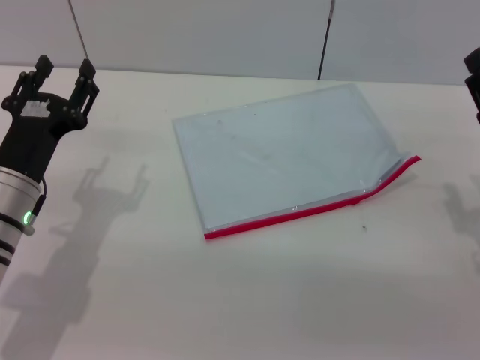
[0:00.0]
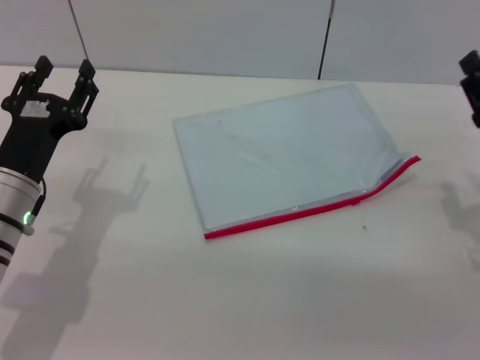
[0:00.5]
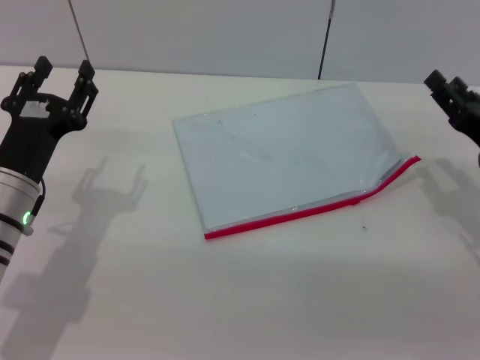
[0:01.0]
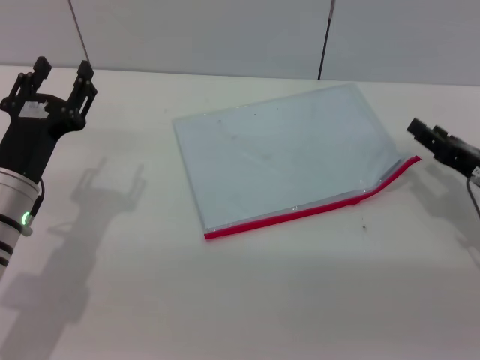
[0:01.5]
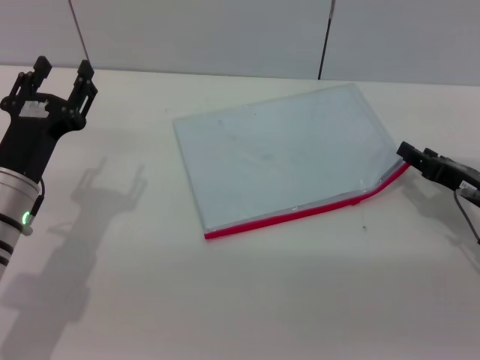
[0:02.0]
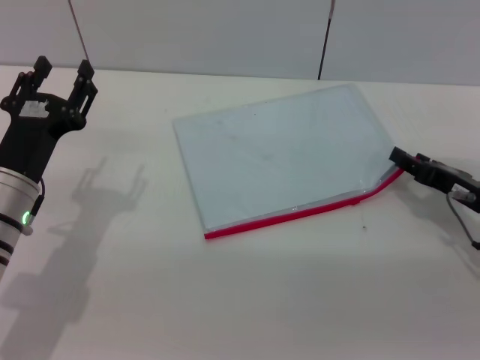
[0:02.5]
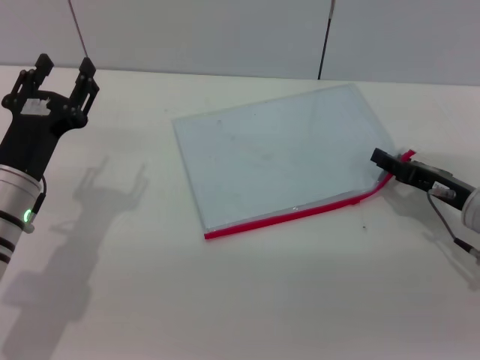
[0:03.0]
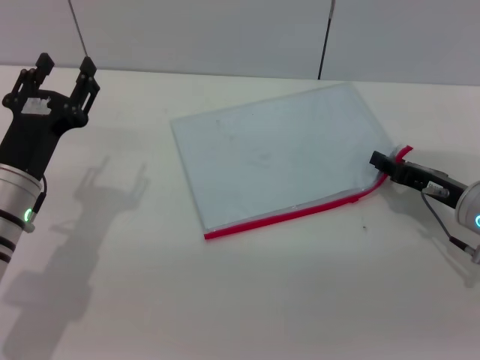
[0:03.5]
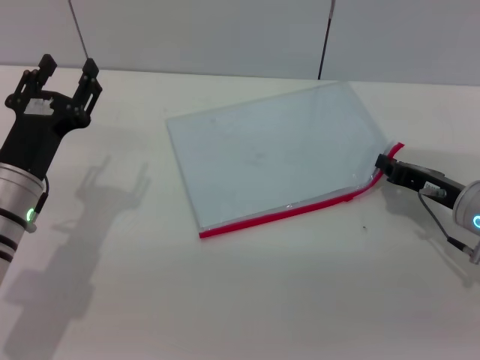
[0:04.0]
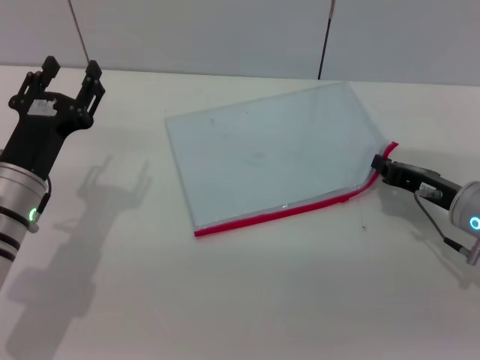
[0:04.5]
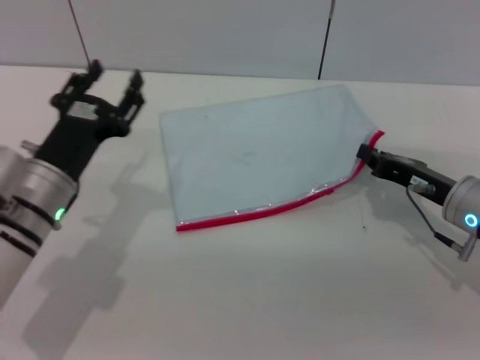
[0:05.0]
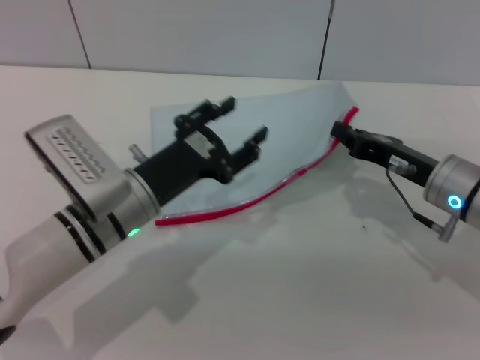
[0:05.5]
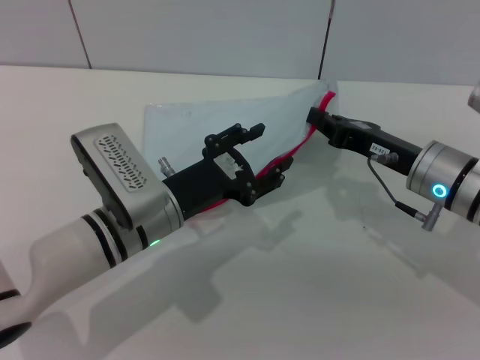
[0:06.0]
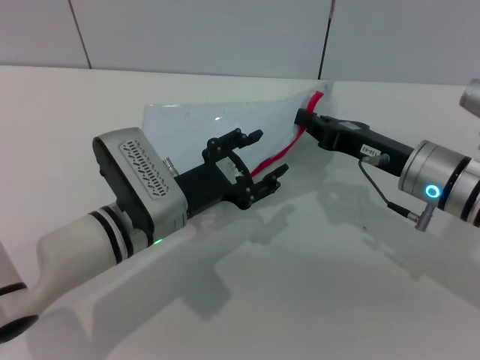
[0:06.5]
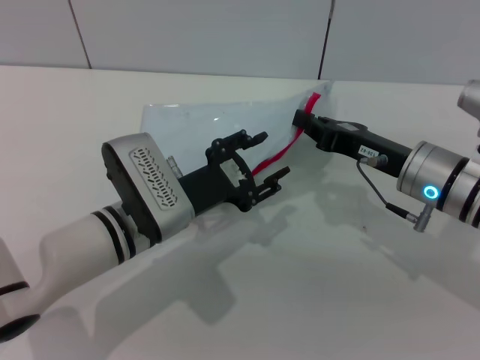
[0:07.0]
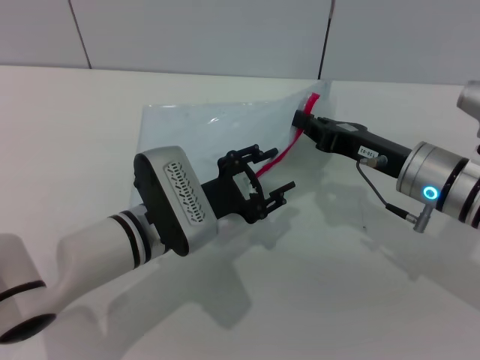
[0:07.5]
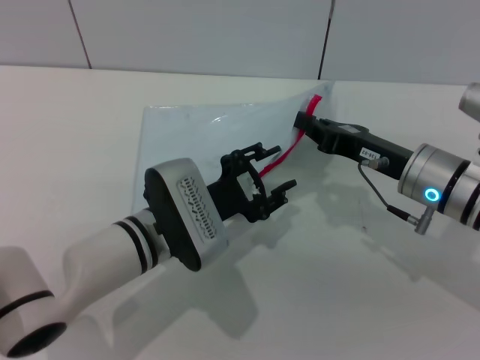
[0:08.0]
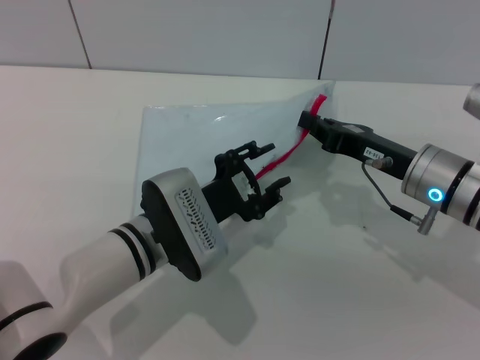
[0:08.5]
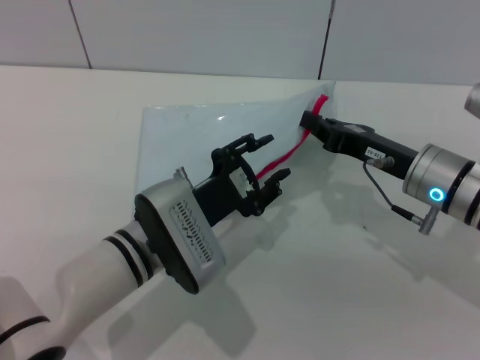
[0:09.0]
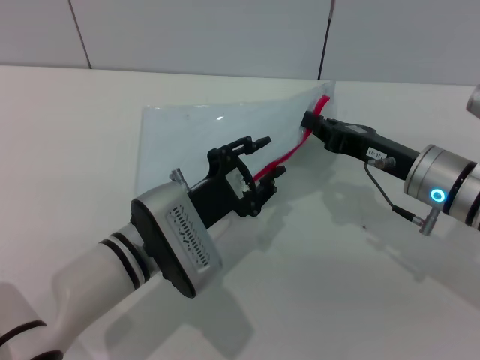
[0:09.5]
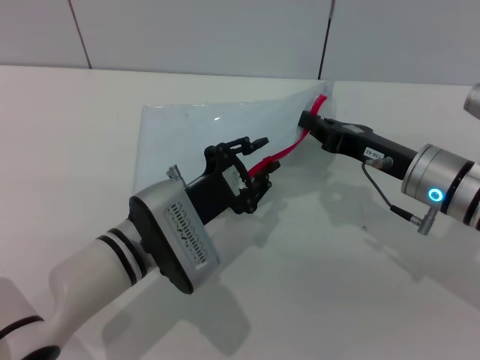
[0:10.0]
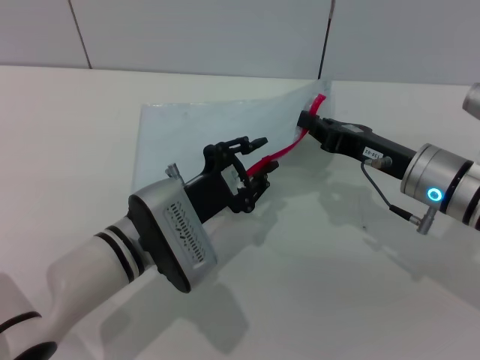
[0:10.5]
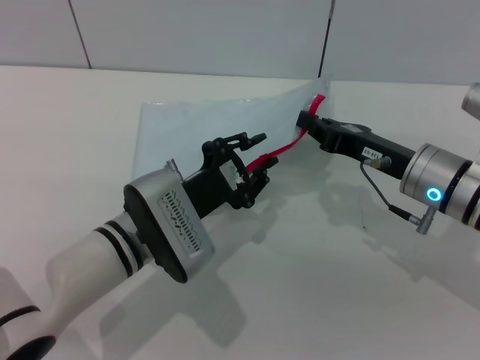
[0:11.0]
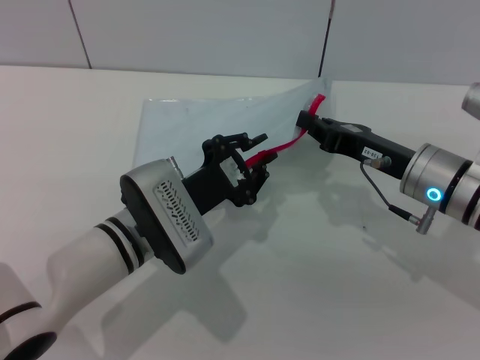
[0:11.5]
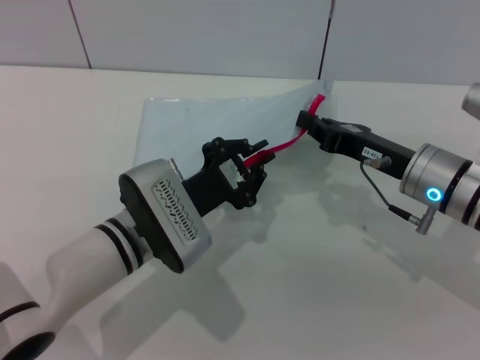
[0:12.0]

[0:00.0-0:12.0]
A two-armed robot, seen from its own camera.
Step, 0:00.0 to 0:06.0: Pick up the transparent plastic bag with the right gripper.
0:00.0 to 0:02.0: The right gripper ends up some 5 cm from where it was.
0:02.0 to 0:04.0: The right gripper closes its fingers.
0:04.0 to 0:06.0: The right gripper moves to the left, about 5 cm; the left gripper is displaced to the right by about 10 cm.
0:08.0 to 0:12.0: The grippers stay close to where they were, moving slightly.

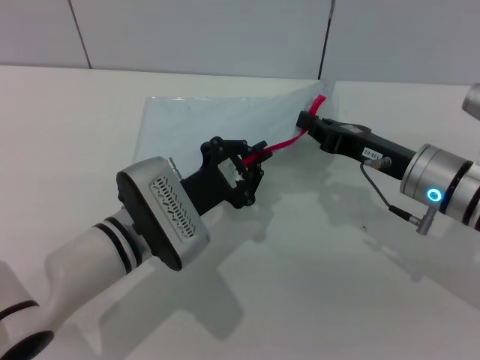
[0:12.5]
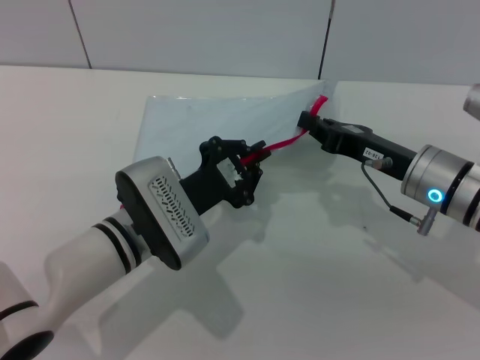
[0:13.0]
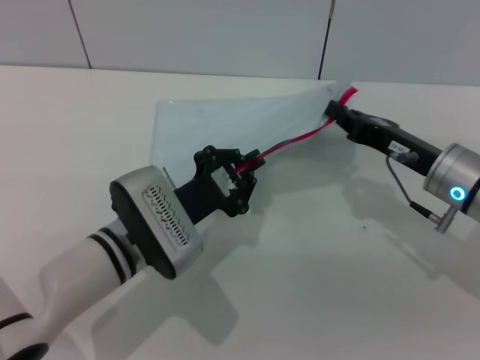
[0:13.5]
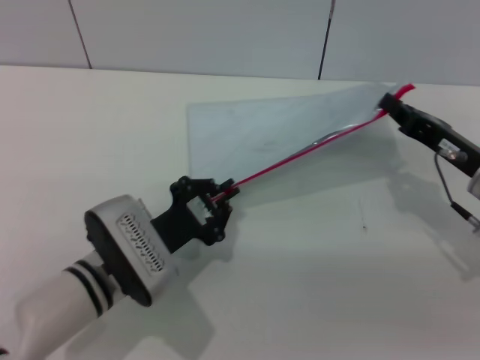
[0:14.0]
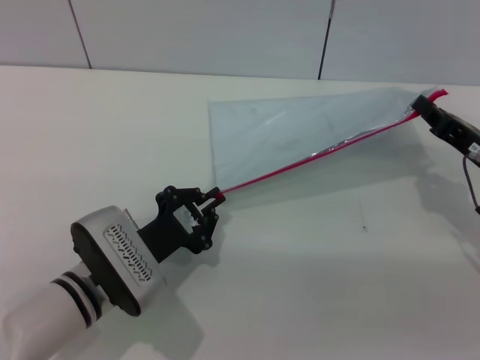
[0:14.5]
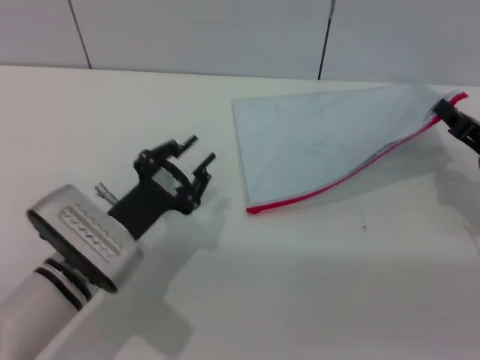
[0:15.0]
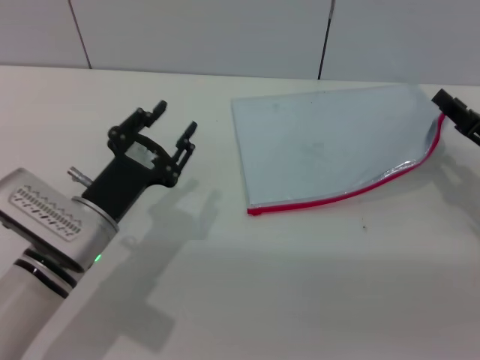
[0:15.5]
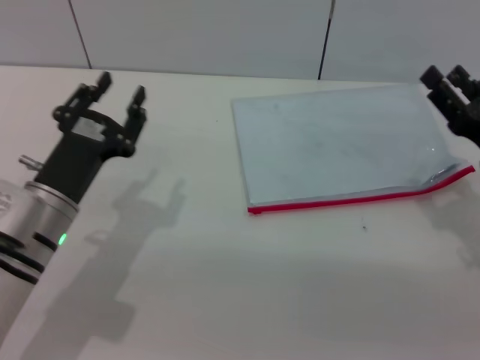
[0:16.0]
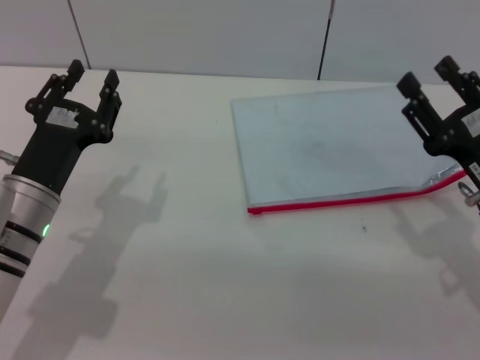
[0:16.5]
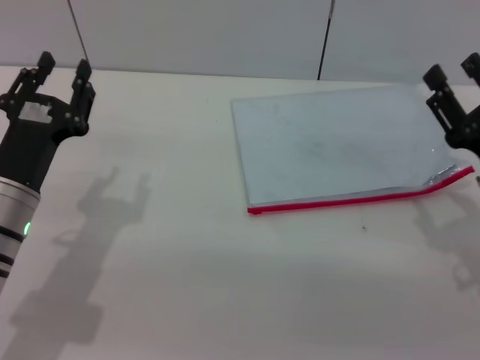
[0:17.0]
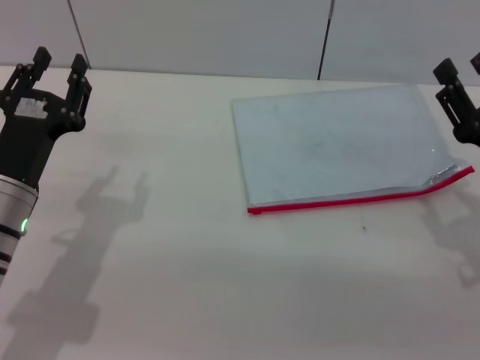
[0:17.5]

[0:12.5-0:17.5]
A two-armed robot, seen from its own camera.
Step, 0:12.5 to 0:15.0: Pulling up the zipper on the transparent plastic bag with the left gripper to close it.
Step, 0:15.5 to 0:16.0: Place the transparent plastic bag.
0:12.5 to 0:15.0: The left gripper moves approximately 5 cm; the right gripper shifts some 10 cm to the right.
0:15.0 to 0:17.5: The left gripper is displaced to the left by roughly 5 cm, and opens its fingers. Meanwhile the right gripper travels backward by roughly 5 cm, and opens up.

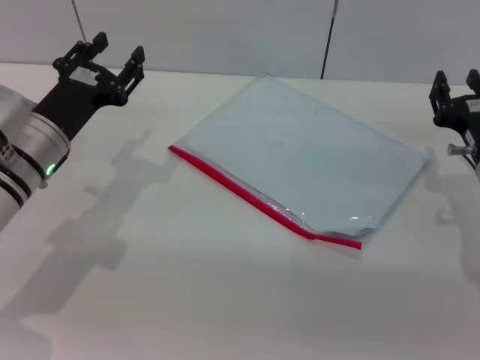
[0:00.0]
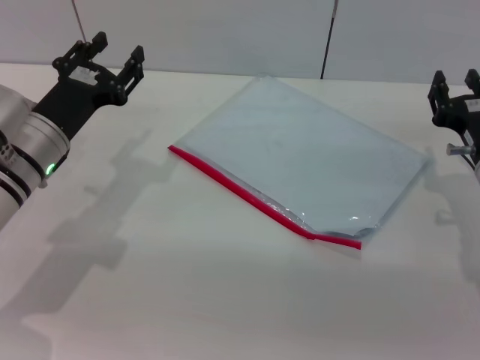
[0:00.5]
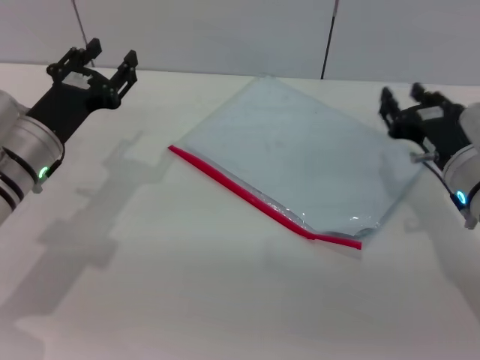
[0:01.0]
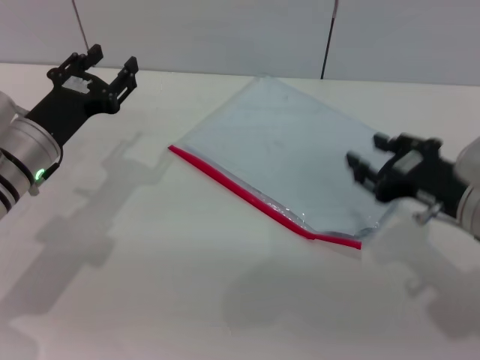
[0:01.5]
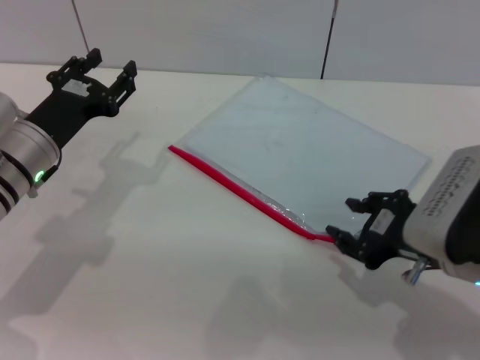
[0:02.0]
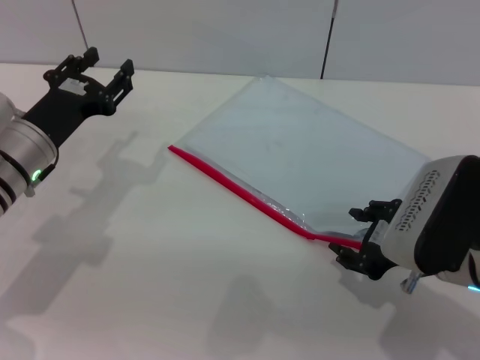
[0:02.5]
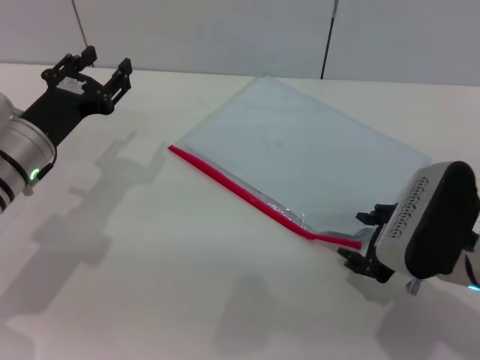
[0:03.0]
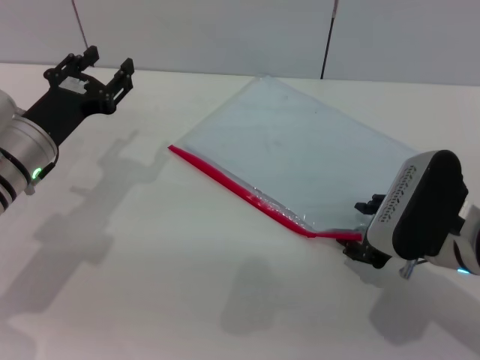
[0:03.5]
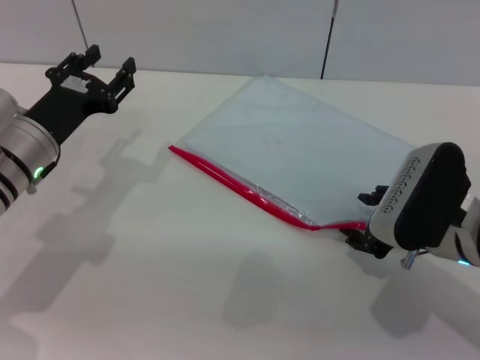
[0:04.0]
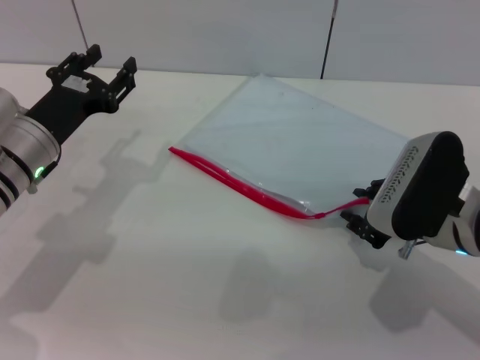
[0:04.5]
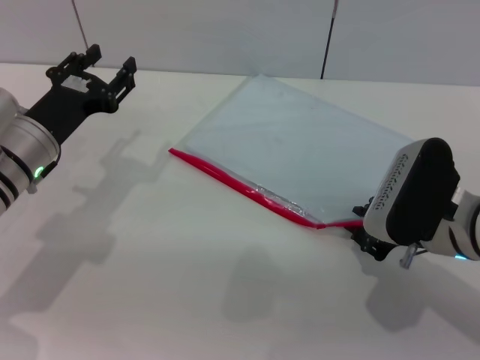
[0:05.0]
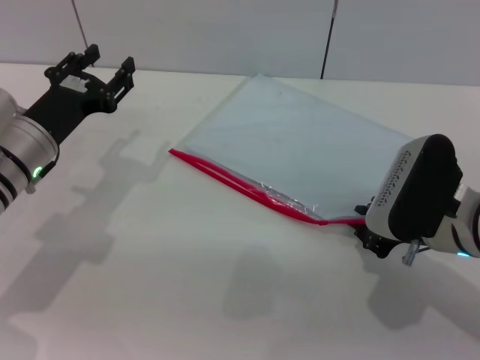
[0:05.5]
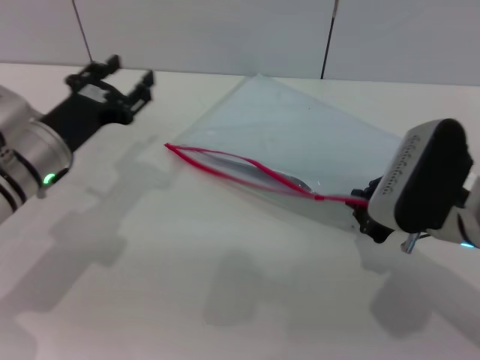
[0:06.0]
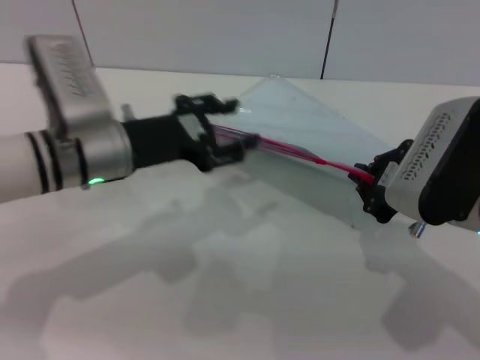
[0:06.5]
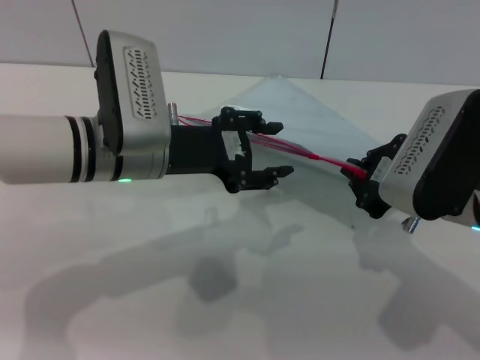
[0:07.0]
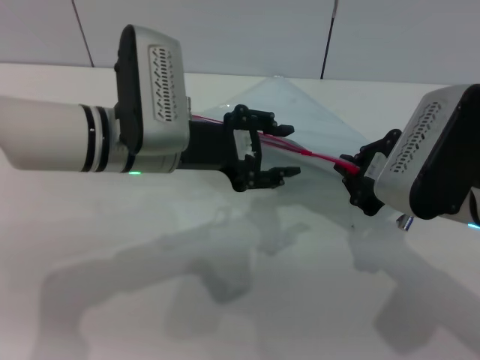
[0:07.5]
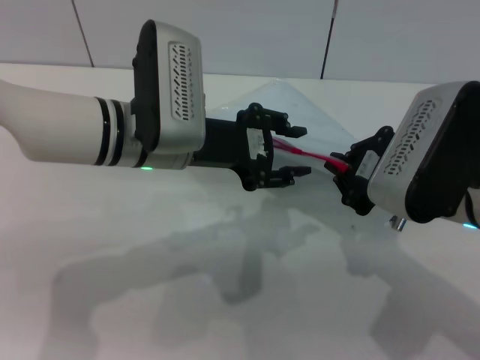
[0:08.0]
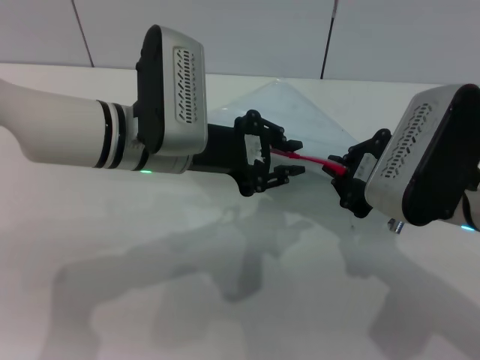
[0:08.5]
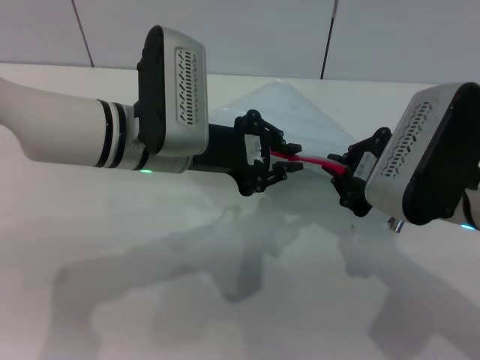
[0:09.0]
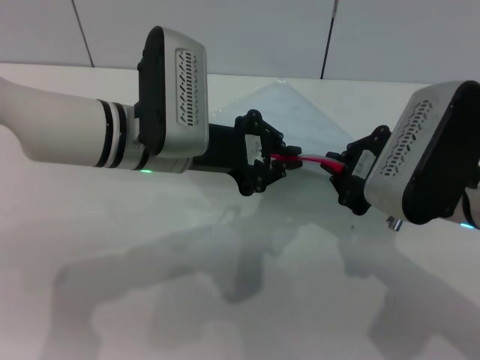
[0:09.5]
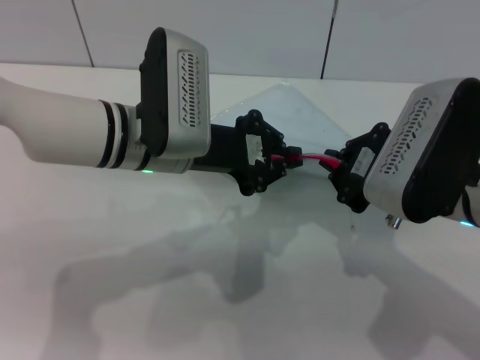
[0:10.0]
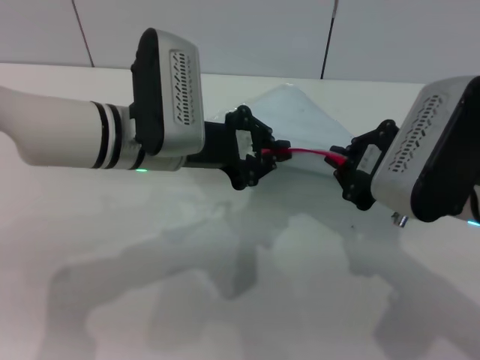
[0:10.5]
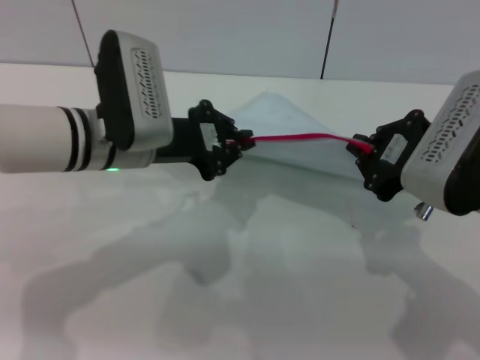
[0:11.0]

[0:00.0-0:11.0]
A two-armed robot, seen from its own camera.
Step, 0:00.0 to 0:06.0: Pick up the transparent plastic bag with the right gripper.
0:00.0 to 0:02.0: The right gripper shifts about 10 cm backward and upward.
0:02.0 to 0:03.5: There are only small adjustments of the grippers.
0:03.5 to 0:05.5: The right gripper closes.
0:05.5 to 0:07.5: The right gripper shifts approximately 5 cm upward. Meanwhile the left gripper heads to the right and upward, covering approximately 15 cm.
0:07.5 to 0:09.0: The left gripper closes.
